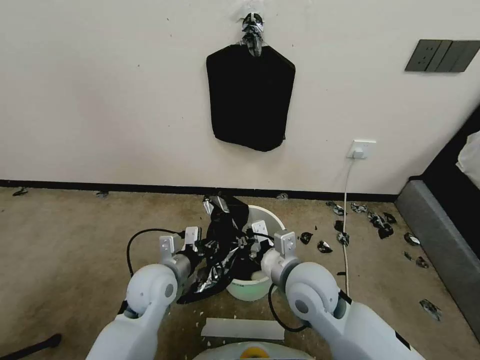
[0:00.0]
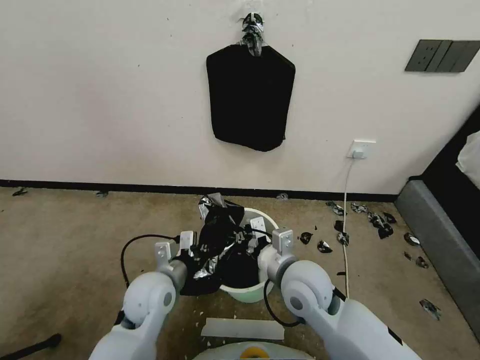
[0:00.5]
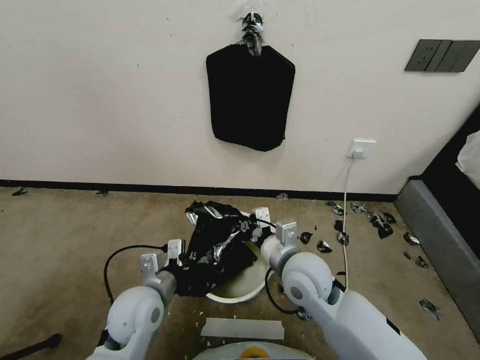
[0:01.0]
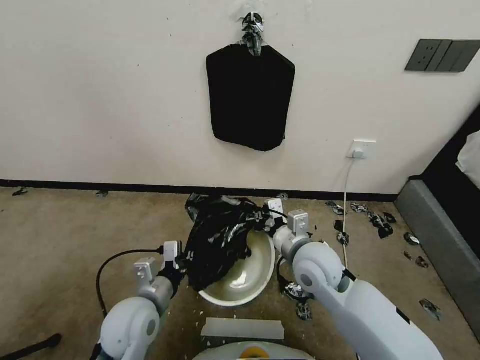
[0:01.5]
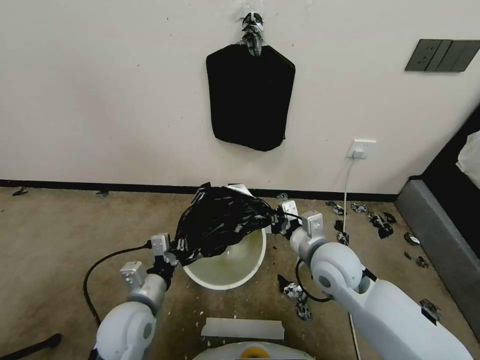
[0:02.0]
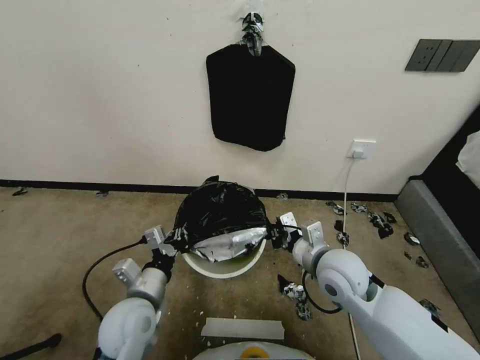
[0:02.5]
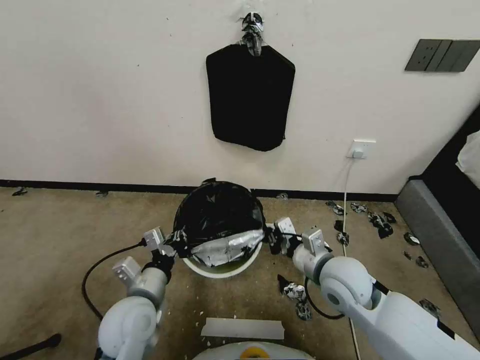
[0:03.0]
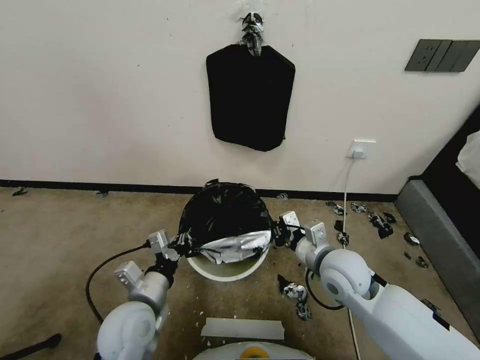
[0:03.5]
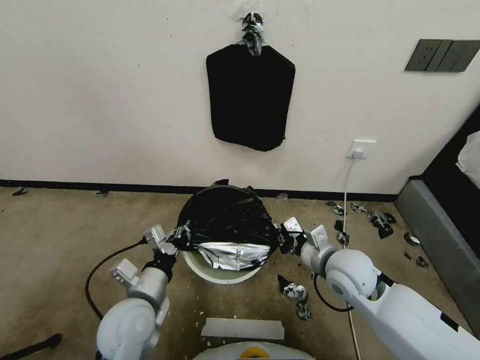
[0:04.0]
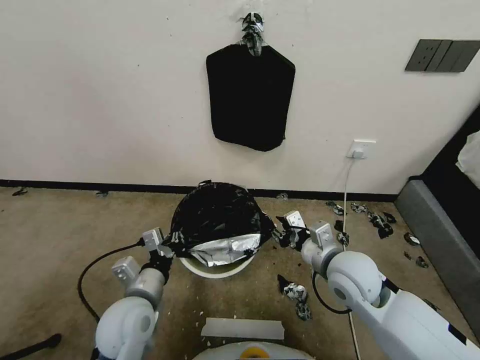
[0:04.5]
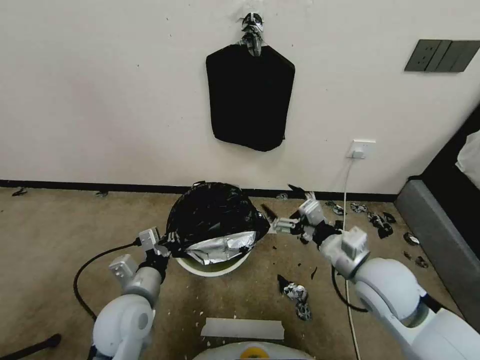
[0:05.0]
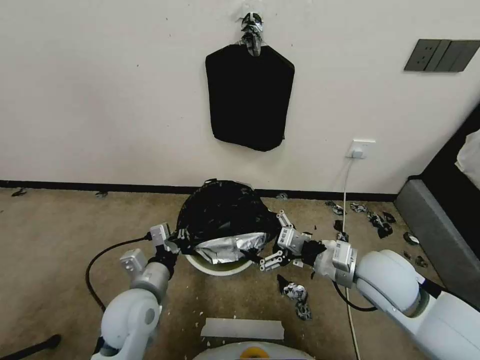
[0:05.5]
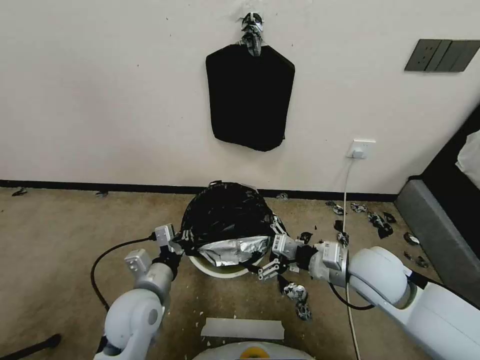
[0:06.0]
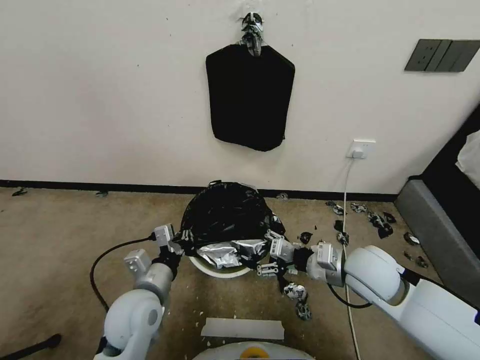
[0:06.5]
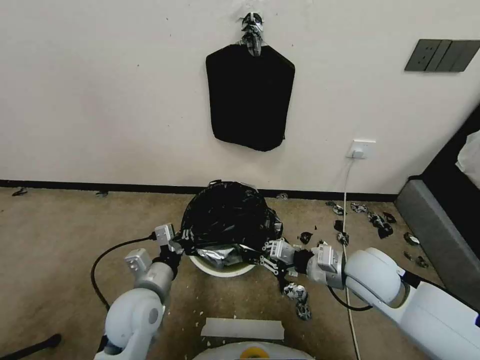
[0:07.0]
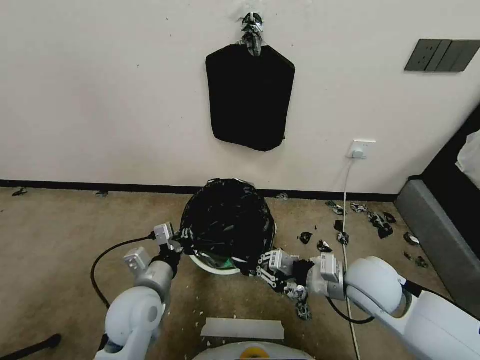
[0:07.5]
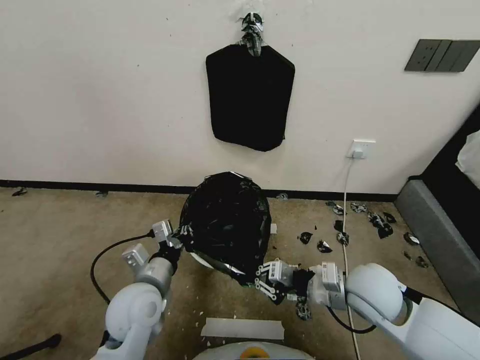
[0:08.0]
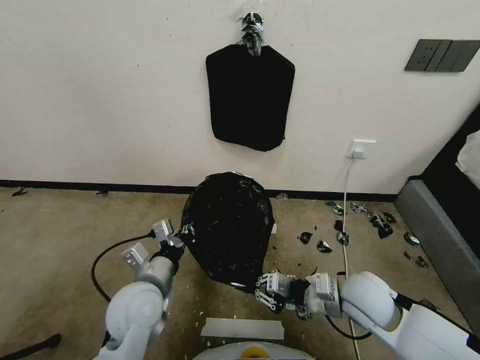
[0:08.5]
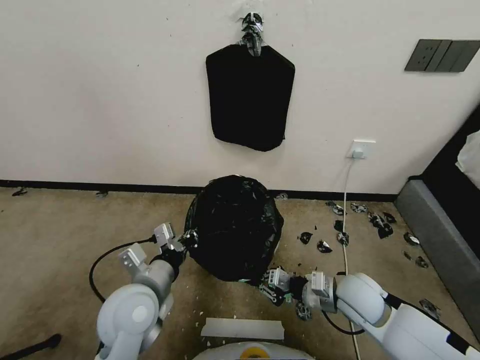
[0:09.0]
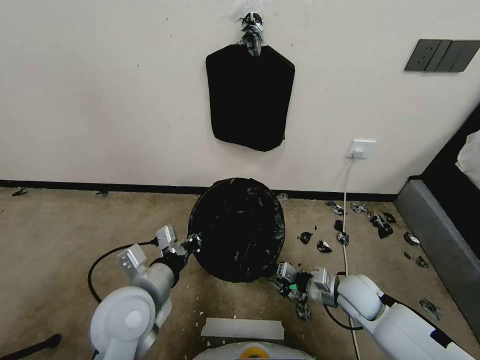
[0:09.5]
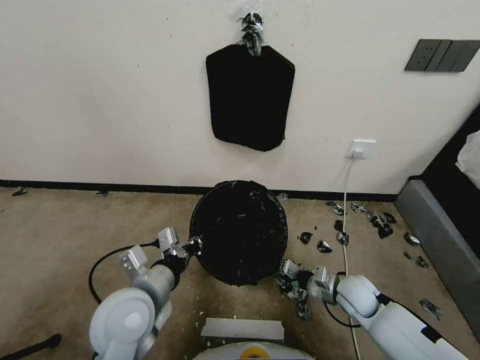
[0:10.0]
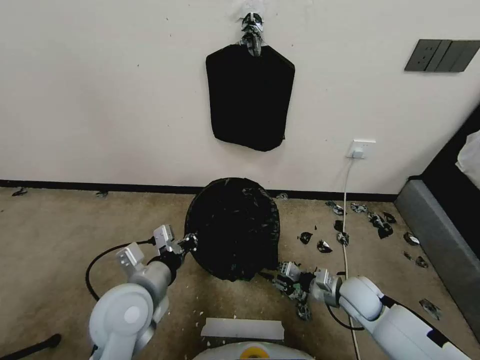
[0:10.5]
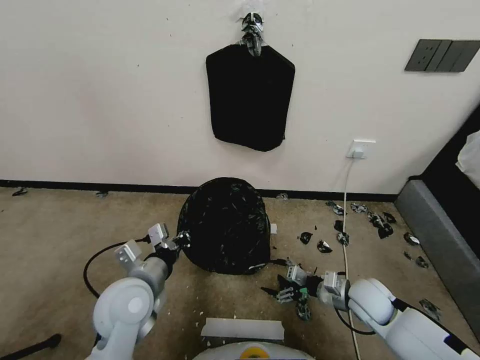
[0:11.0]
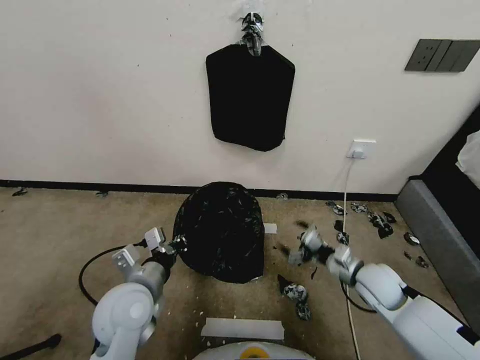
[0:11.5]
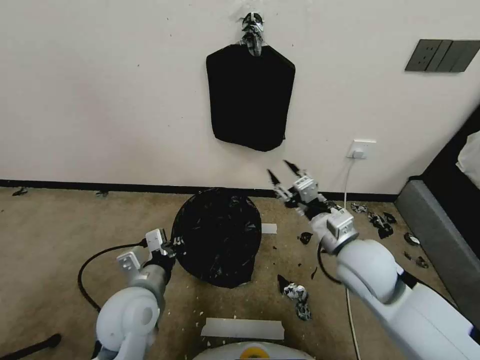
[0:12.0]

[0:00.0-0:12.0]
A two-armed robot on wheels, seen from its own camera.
Task of the whole recording: Place a trash bag onto the trash bin.
0:00.0 to 0:02.0: The right gripper heads to the right, covering approximately 5 cm. Meanwhile the left gripper heads backward, covering roughly 5 cm, and closes its fingers.
0:04.0 to 0:06.0: The right gripper changes place by approximately 5 cm, and opens its fingers.
0:06.0 to 0:08.0: The right gripper closes up.
0:08.0 to 0:10.0: The left gripper shifts about 5 cm upward; the right gripper shifts about 15 cm downward.
0:10.0 to 0:12.0: The right gripper heads upward, covering some 25 cm, and opens up.

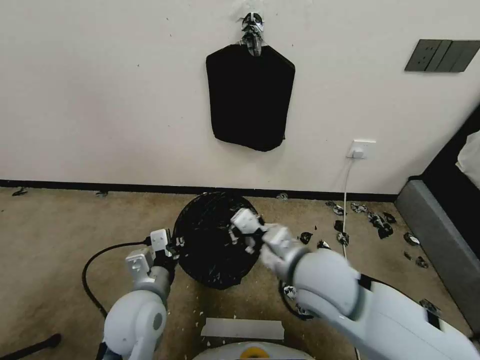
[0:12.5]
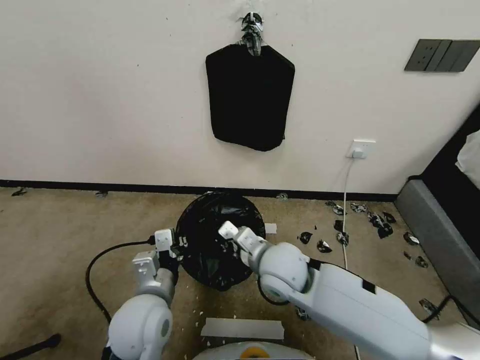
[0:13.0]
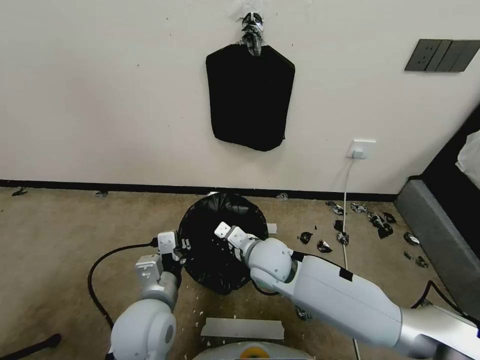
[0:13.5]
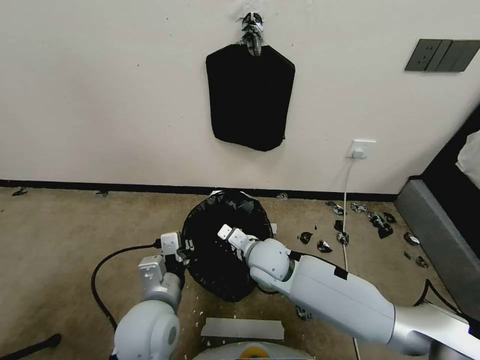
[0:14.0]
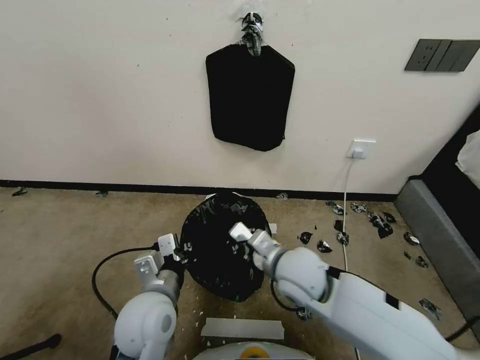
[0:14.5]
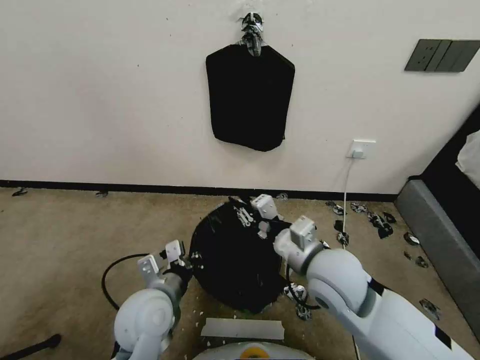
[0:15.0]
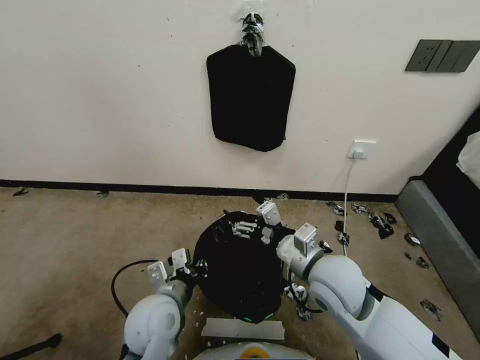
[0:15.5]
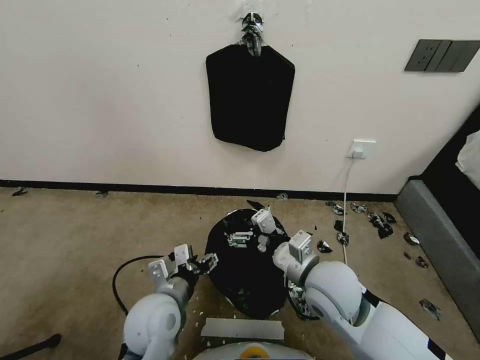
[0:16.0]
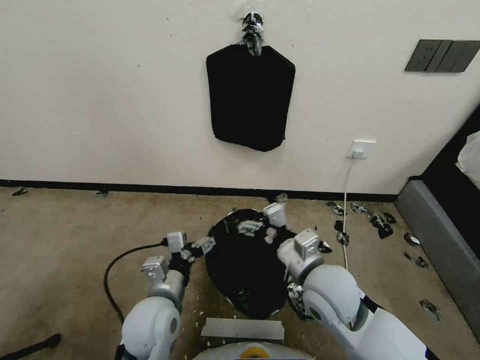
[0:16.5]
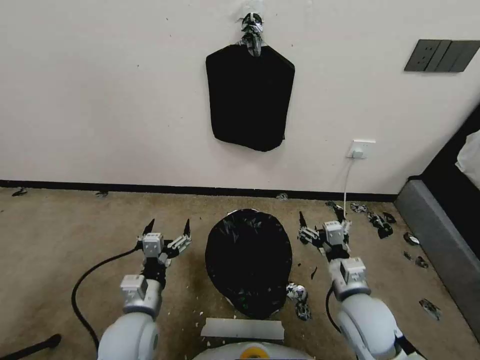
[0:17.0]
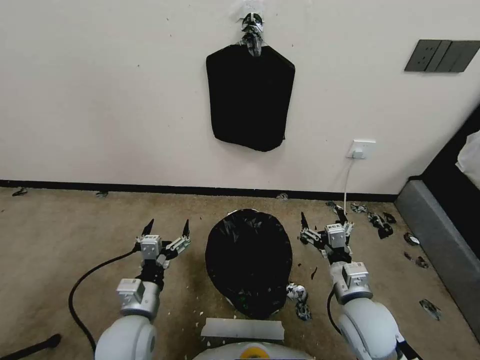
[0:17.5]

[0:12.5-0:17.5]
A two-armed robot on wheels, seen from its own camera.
Task of the whole recording: Place a trash bag onto the trash bin.
0:12.5 to 0:15.0: The right gripper reaches some 15 cm downward, then returns.
0:15.0 to 0:17.5: The right gripper heads downward and to the right, covering some 15 cm, and opens. The left gripper is displaced downward by roughly 5 cm, and opens.
